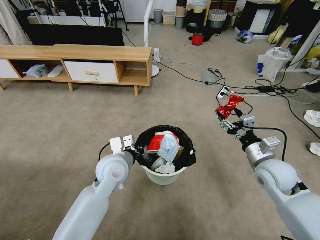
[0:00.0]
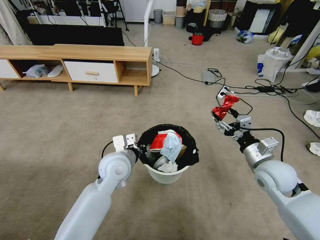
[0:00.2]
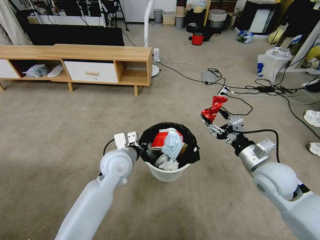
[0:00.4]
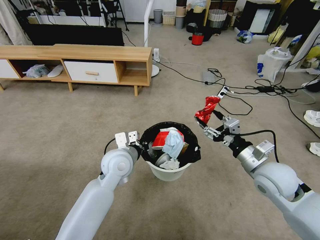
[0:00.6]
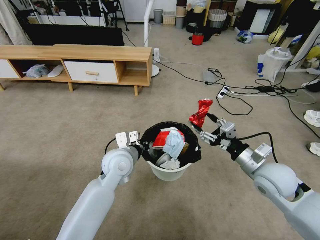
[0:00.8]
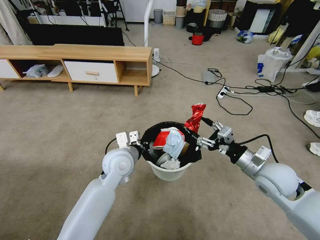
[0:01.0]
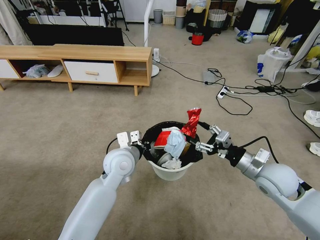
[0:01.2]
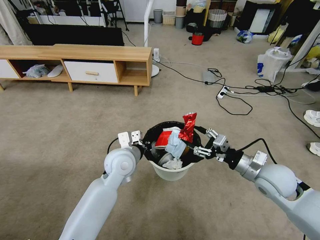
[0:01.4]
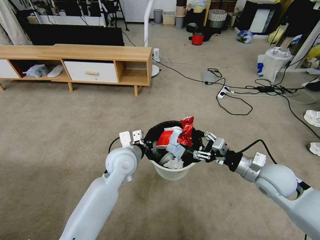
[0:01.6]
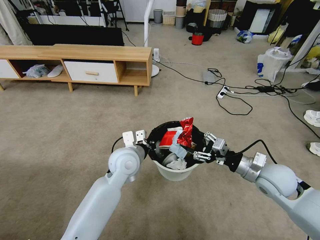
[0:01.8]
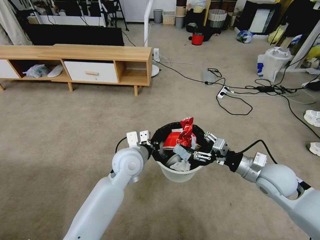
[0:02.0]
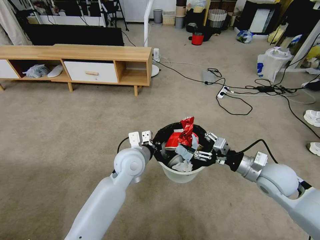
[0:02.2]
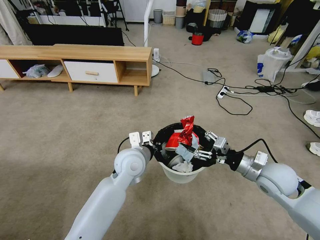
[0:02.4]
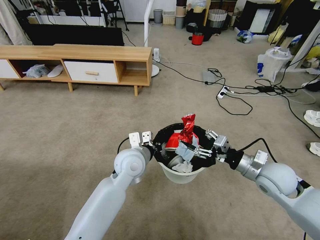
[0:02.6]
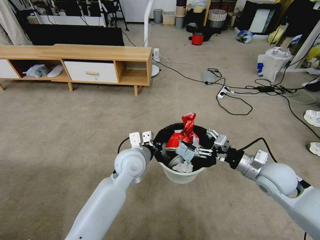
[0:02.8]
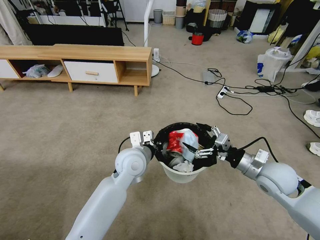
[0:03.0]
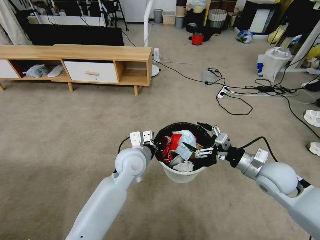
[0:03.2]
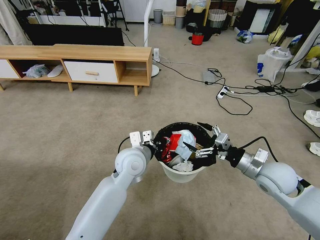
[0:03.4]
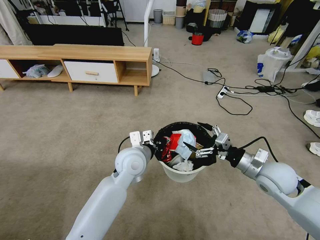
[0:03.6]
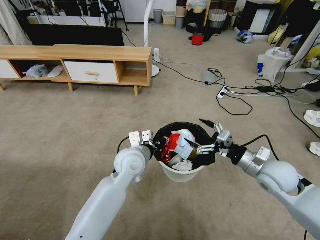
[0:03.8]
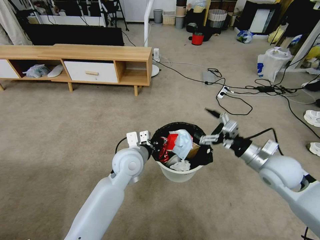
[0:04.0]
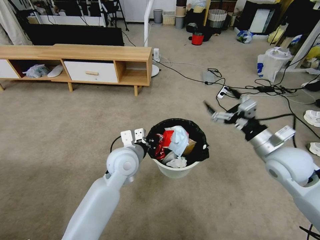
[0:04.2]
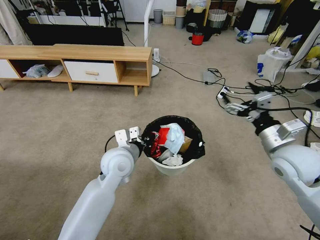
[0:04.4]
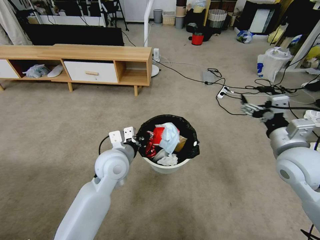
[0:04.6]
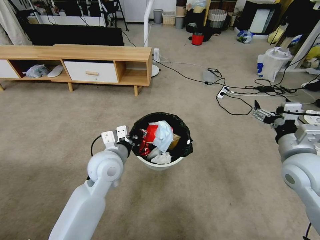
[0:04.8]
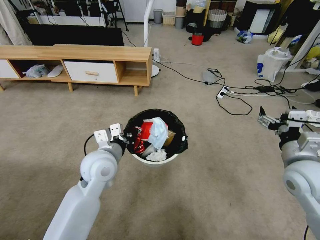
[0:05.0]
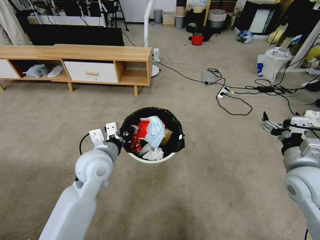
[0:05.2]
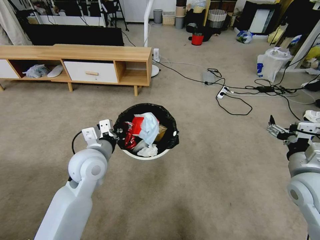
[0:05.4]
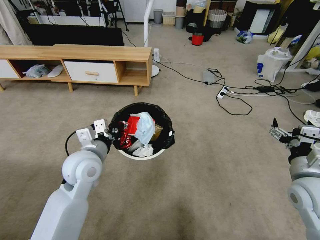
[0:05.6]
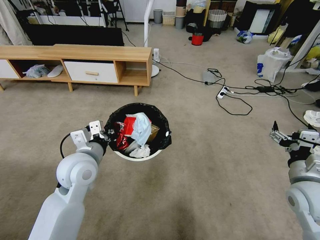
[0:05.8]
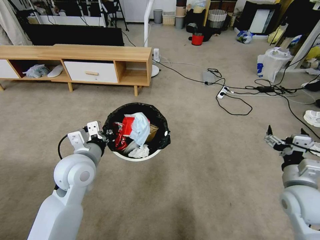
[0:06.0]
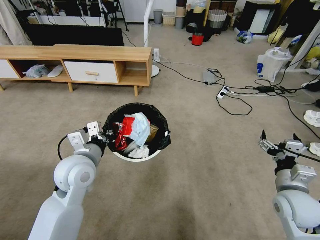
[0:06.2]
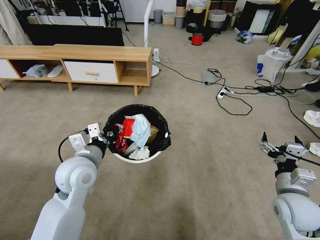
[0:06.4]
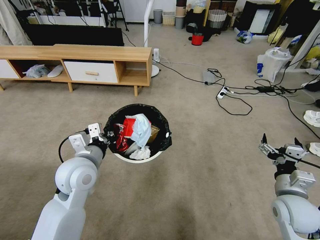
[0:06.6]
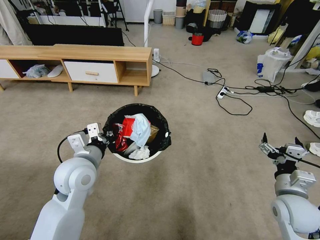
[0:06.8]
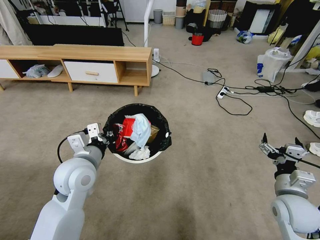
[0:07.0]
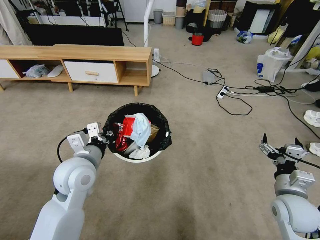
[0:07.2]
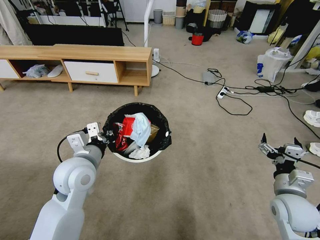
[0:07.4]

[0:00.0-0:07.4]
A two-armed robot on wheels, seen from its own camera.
Task of the whole recording: Pick up the trash bin and place the garbage on the floor into it.
0:01.4 to 0:03.0: The right gripper opens its fingers.
0:03.0 to 0:04.4: The right gripper shifts about 10 cm upward.
0:04.4 to 0:06.0: The left gripper travels to the left by roughly 10 cm. Meanwhile the right gripper shifts about 10 cm downward and backward.
0:06.0 to 0:07.4: The grippers stay close to where they were, moving slightly.
